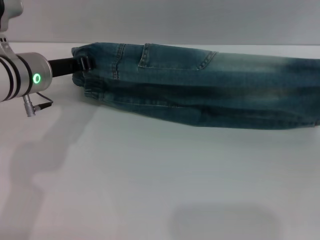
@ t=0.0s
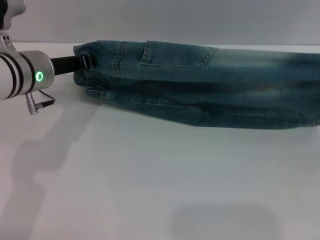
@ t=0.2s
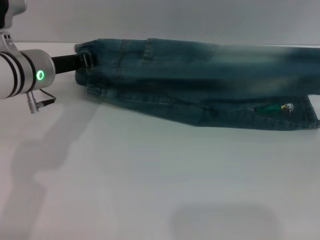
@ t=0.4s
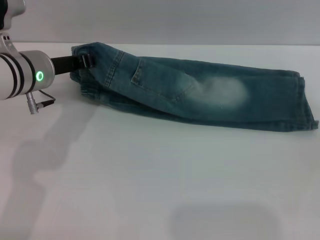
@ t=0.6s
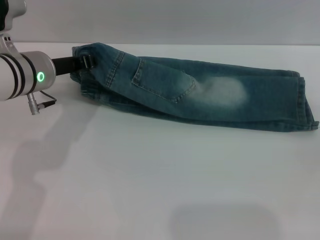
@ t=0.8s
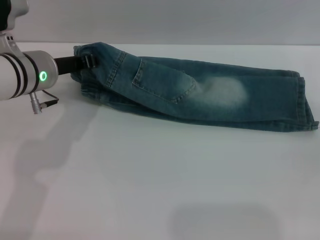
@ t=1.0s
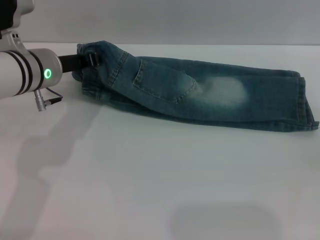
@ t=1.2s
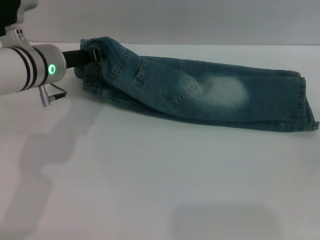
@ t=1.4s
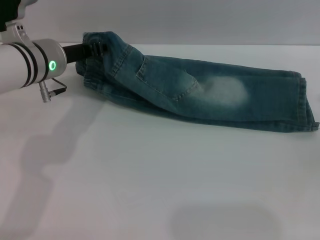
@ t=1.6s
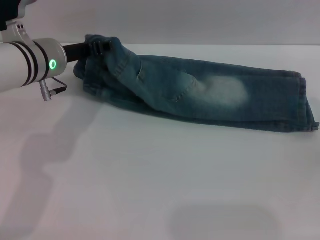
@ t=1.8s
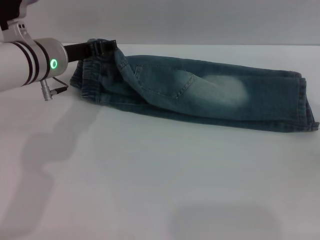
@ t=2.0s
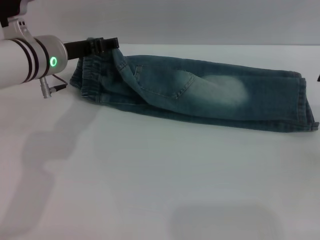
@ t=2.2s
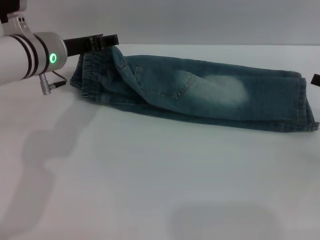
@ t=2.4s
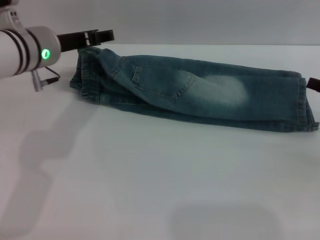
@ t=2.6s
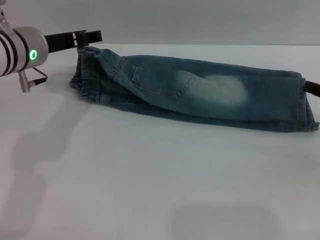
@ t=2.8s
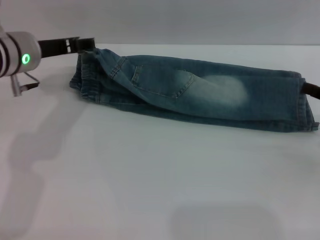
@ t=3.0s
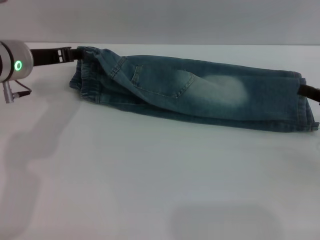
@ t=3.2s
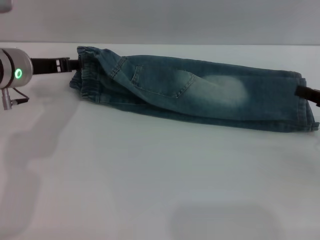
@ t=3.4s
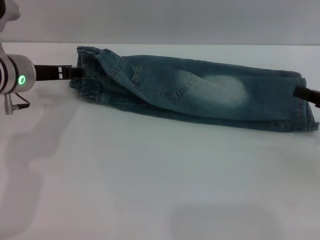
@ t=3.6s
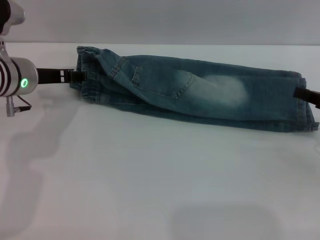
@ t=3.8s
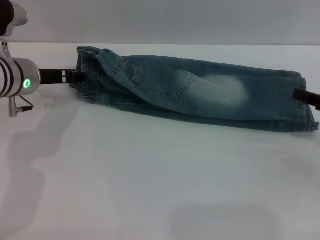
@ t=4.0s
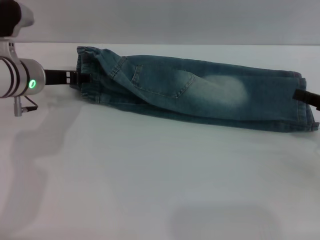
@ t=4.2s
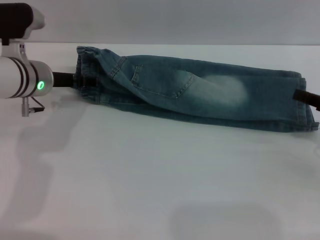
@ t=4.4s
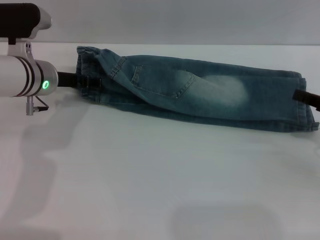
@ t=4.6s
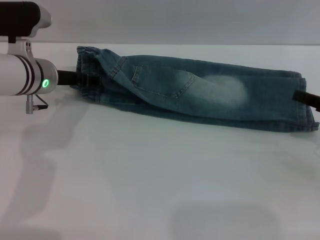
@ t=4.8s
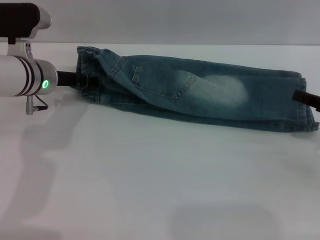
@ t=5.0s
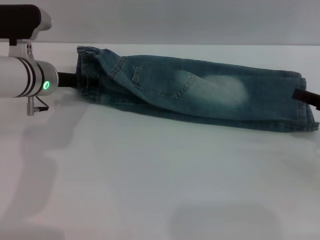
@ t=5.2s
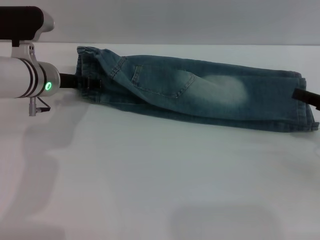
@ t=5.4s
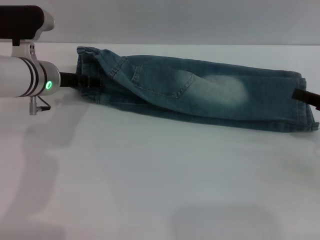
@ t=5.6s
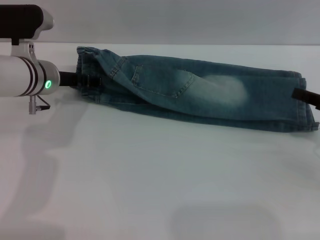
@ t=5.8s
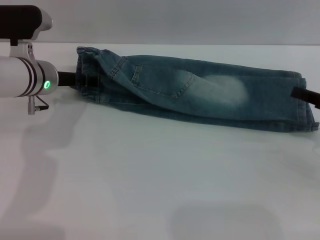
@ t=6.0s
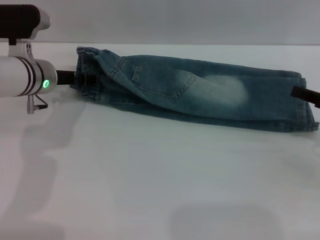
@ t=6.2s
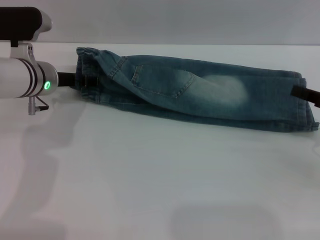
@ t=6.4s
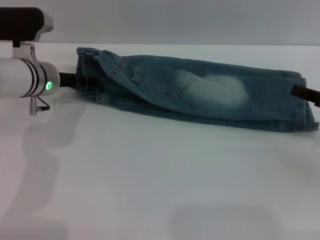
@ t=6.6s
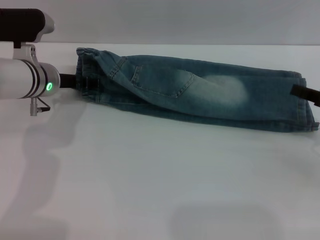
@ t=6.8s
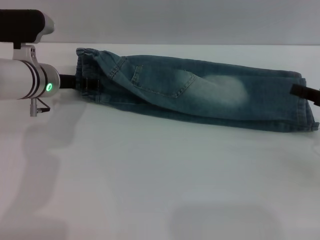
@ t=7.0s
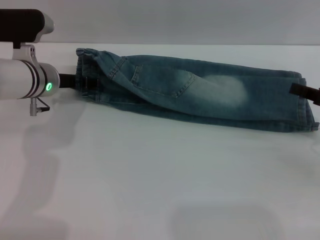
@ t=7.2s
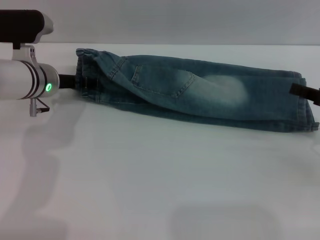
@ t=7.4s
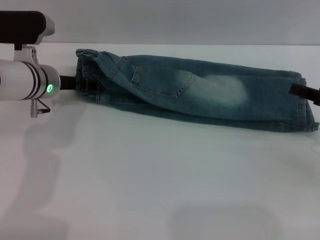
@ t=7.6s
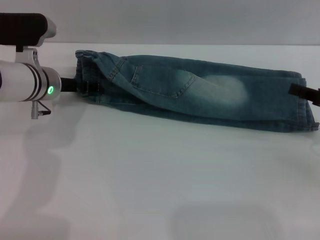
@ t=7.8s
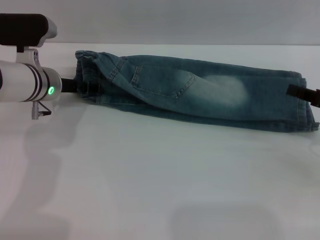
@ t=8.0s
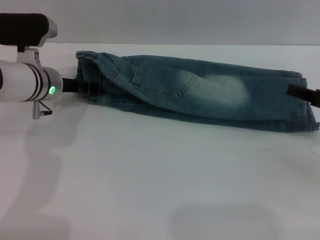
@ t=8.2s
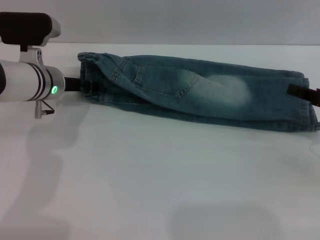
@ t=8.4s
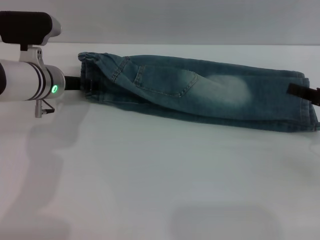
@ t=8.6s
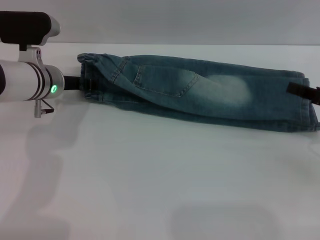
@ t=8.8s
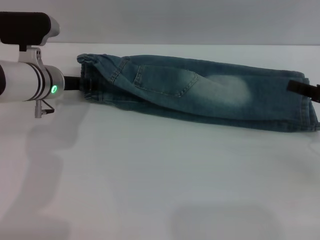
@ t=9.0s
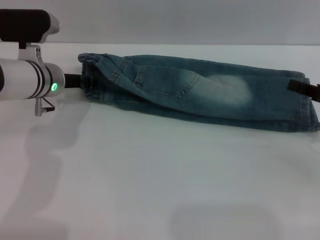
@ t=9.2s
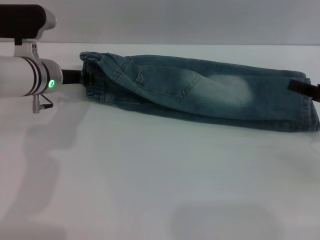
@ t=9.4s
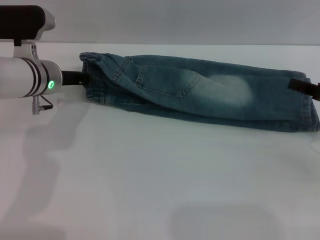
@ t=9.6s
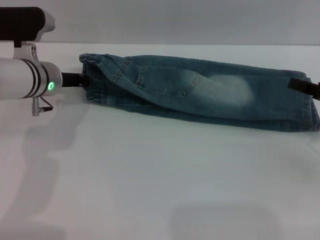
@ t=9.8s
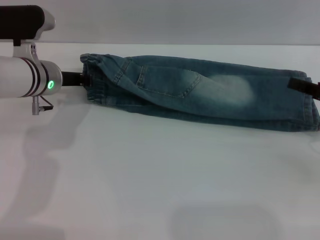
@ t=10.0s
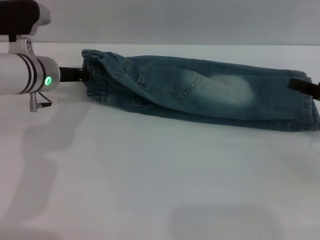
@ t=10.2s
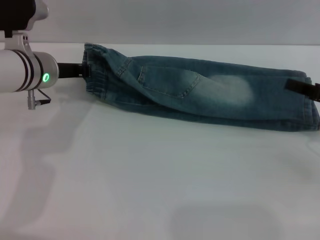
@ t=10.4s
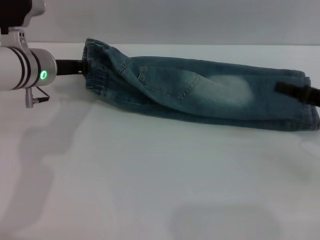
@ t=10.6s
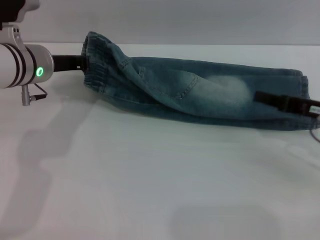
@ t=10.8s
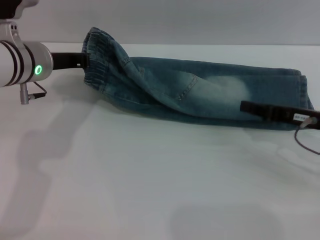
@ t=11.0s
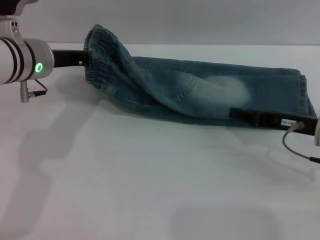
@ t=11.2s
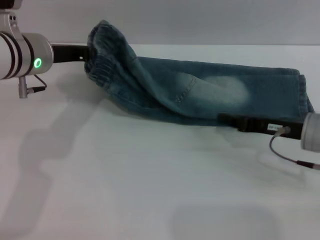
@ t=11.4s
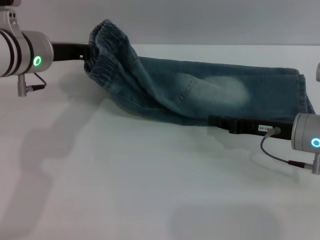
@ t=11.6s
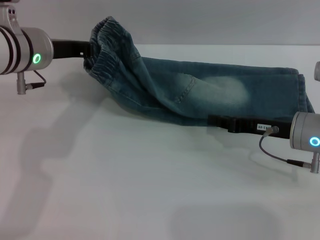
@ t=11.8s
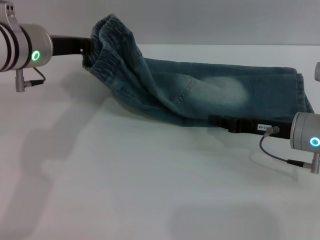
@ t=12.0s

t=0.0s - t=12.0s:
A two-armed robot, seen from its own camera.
Step, t=0.0s - t=3.2s: Fold the bottom of the pants upward with both grippers.
t=0.0s - t=1.6s: There are only small adjustments of the grippers.
t=1.6s - t=3.0s: The left gripper opens.
t=3.0s - t=4.4s: The left gripper shifts by approximately 5 cm.
t=4.4s - t=6.0s: The grippers move only a little.
t=6.0s - t=7.6s: Neither gripper changes place.
t=7.6s - t=9.0s: Both grippers stay put.
t=9.0s - t=10.4s: The left gripper closes its fingers.
t=10.4s - t=12.0s: The left gripper is displaced upward by about 5 cm, while the right gripper travels to the left by roughly 10 cm.

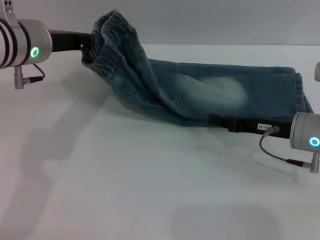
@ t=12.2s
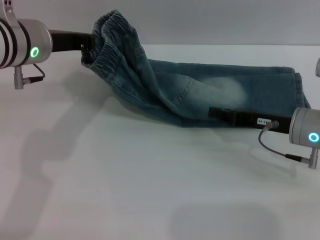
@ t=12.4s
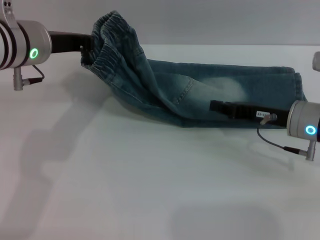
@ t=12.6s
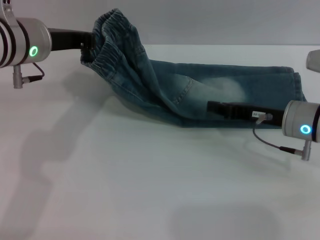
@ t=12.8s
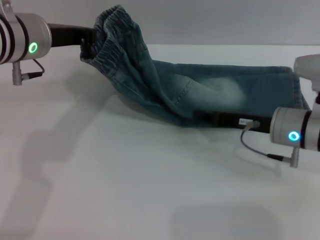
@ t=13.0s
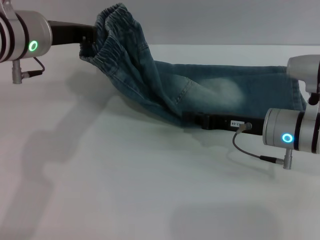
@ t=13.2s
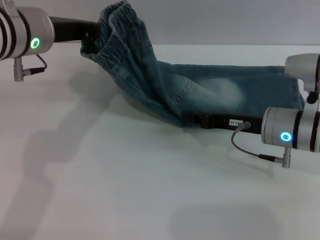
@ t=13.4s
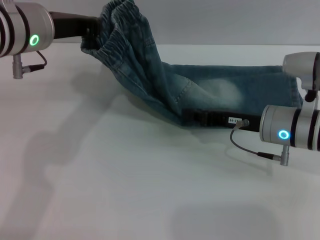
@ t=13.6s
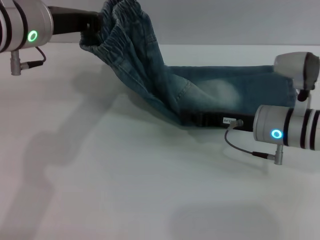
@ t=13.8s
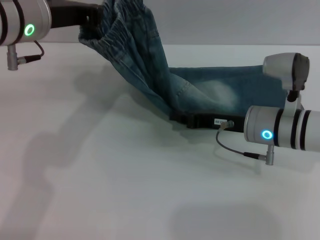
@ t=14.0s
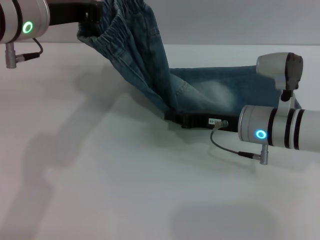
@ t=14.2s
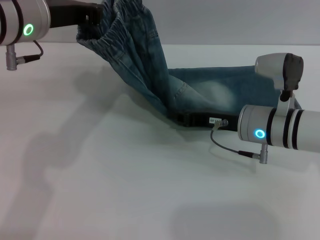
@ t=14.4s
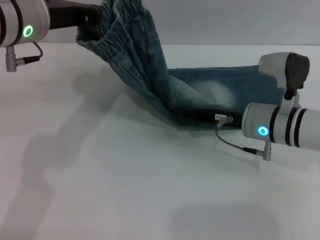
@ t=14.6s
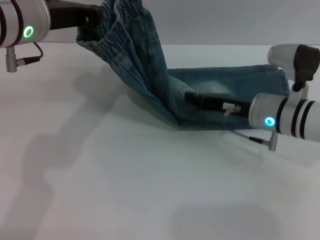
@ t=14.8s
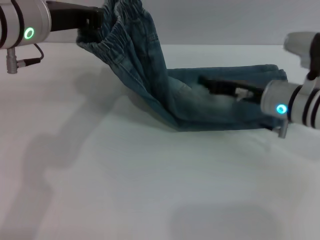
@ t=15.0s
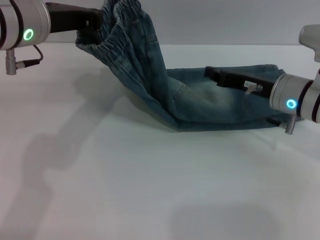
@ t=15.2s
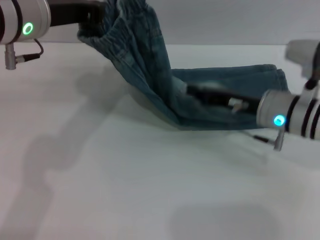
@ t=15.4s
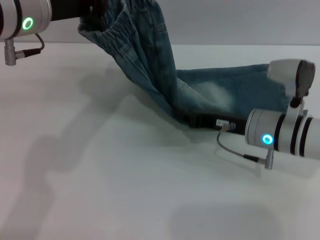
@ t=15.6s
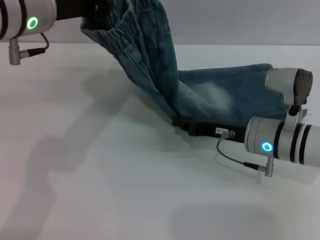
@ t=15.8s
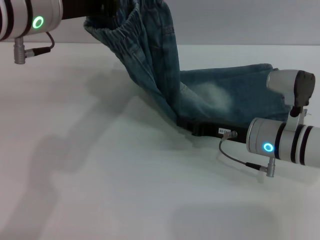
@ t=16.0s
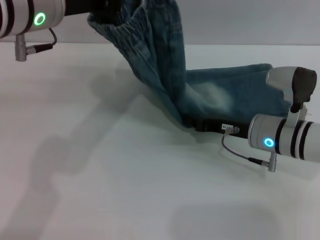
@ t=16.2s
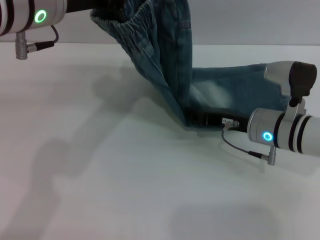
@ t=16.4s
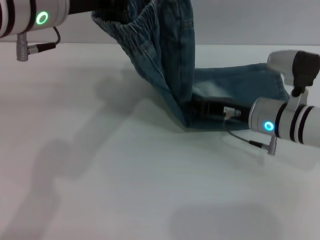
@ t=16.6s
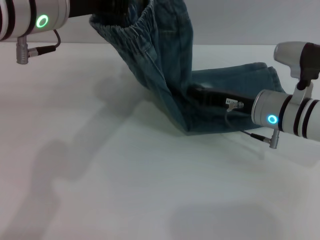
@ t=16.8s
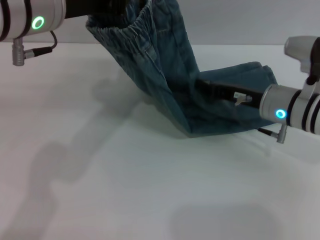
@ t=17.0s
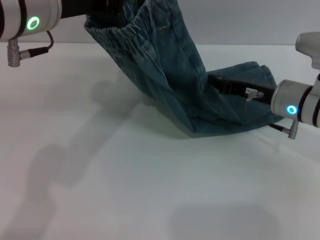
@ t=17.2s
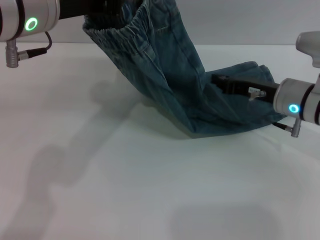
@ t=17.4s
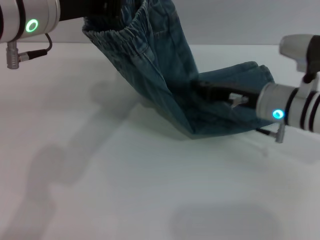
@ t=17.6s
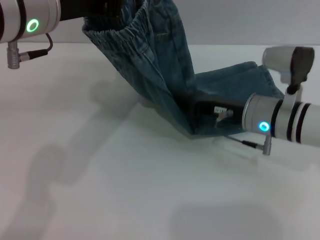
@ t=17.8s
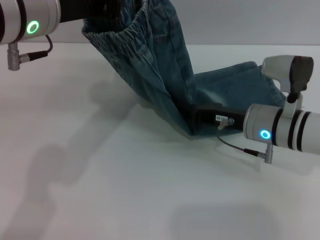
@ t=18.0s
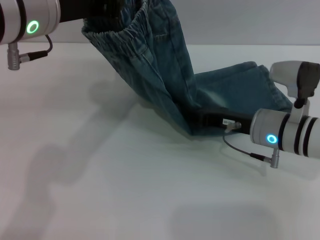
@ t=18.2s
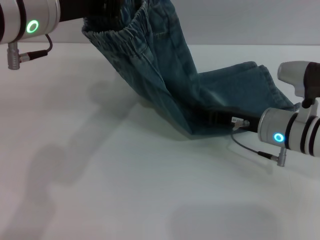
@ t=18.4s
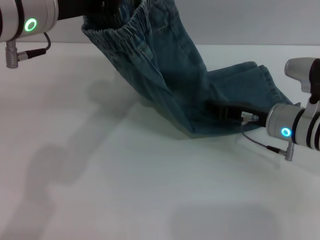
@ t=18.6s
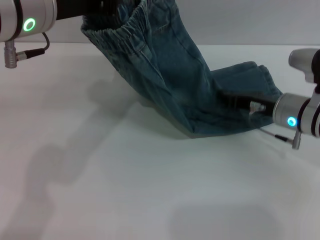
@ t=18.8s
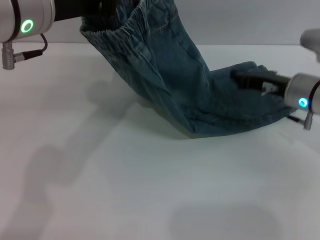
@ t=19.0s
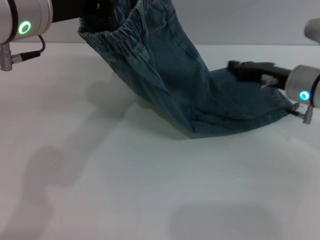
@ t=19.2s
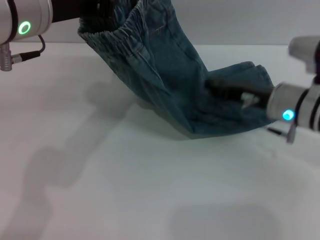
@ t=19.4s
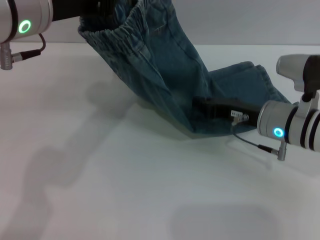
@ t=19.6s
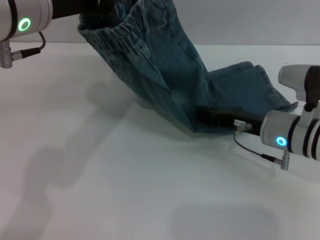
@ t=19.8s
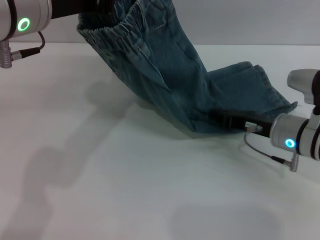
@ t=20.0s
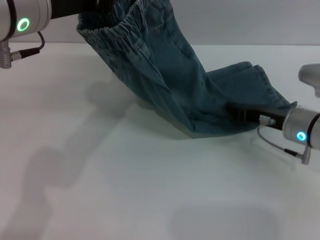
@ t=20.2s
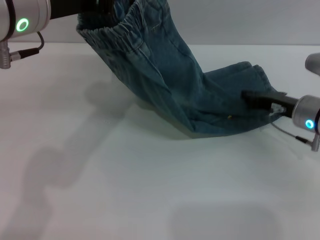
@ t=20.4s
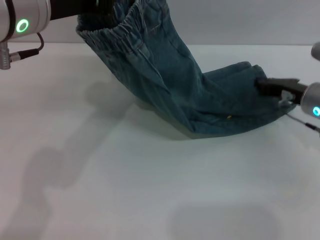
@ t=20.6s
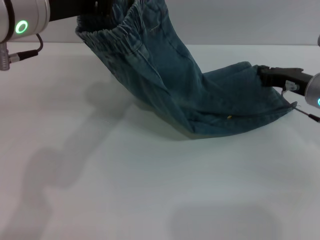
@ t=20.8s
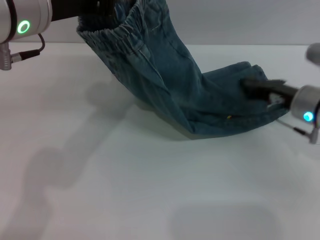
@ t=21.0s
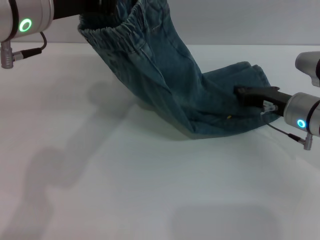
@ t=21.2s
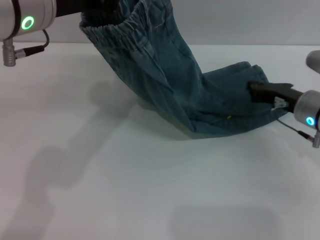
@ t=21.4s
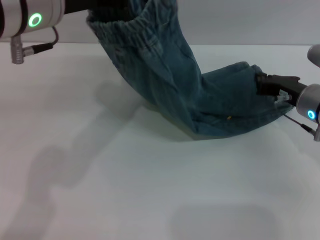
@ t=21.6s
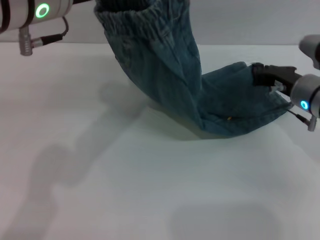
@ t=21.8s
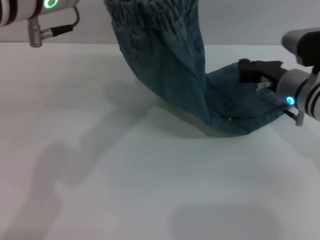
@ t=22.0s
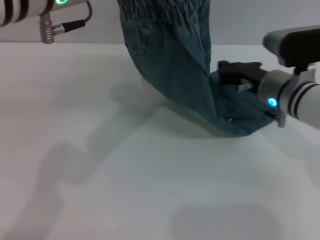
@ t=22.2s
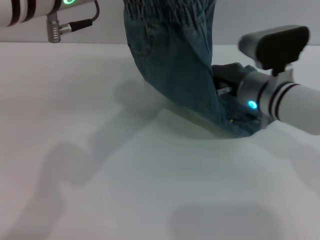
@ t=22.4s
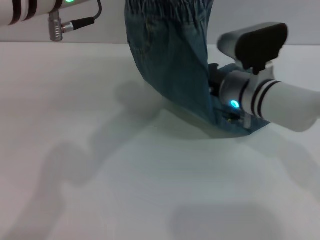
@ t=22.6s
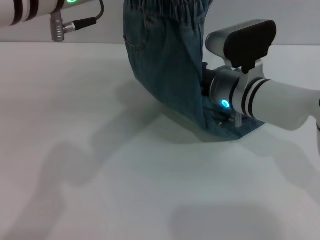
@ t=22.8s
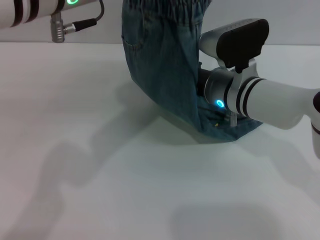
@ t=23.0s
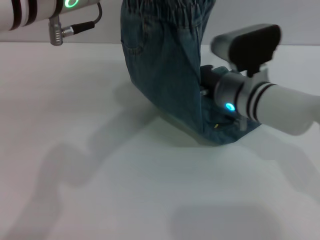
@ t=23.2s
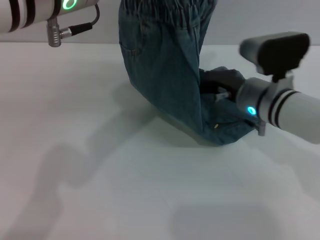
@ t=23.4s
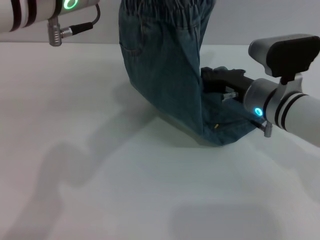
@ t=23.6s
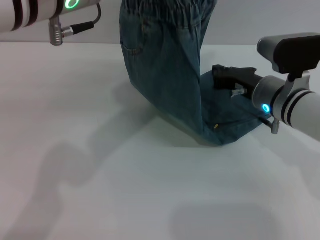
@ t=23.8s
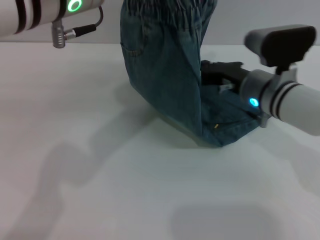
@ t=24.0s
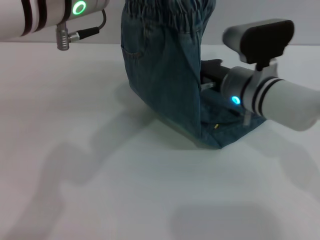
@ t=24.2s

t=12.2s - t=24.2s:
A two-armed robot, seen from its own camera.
t=12.2s - t=13.8s: The right gripper shifts roughly 5 cm to the left.
t=13.8s - t=15.2s: The grippers move only a little.
t=15.2s - t=16.6s: The left gripper ends up some 5 cm from where it was.
t=16.6s - t=18.2s: The grippers stay close to where they were, moving slightly.
t=21.2s - t=22.6s: The left gripper moves some 5 cm; the right gripper shifts some 10 cm to the left.
t=22.6s - t=24.2s: The grippers make only small movements.
